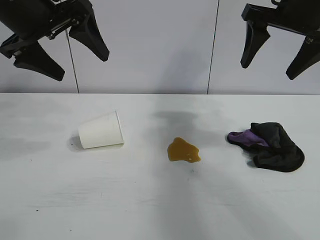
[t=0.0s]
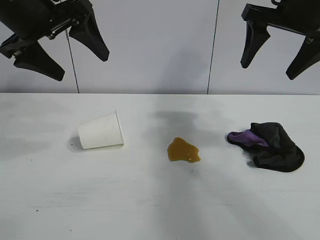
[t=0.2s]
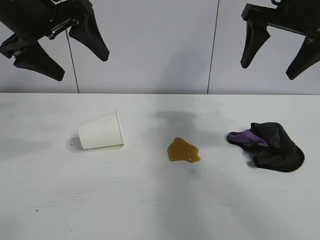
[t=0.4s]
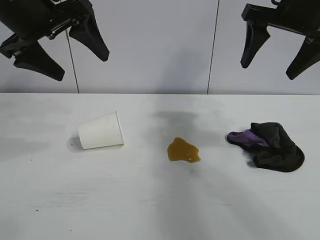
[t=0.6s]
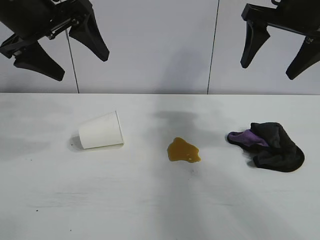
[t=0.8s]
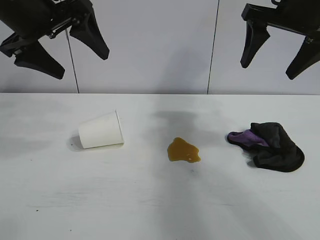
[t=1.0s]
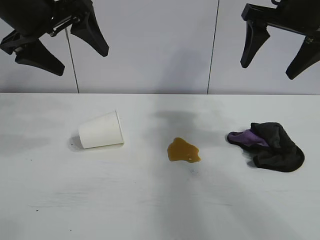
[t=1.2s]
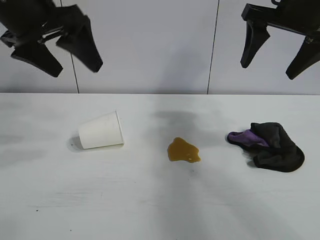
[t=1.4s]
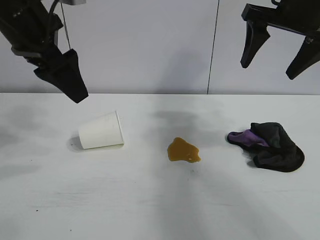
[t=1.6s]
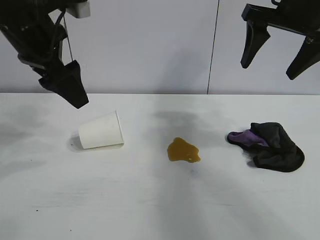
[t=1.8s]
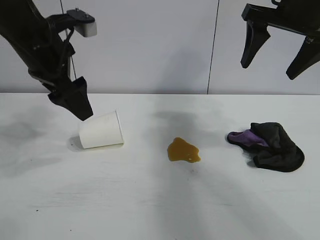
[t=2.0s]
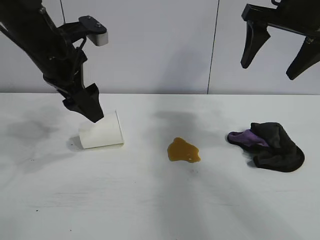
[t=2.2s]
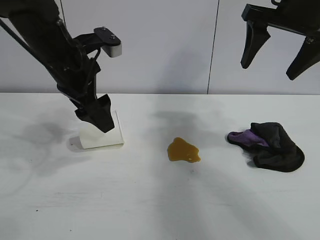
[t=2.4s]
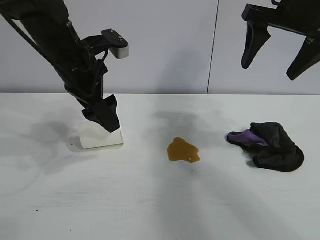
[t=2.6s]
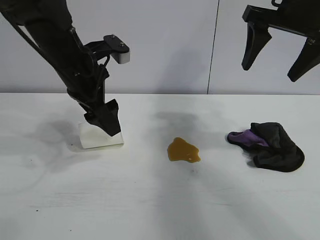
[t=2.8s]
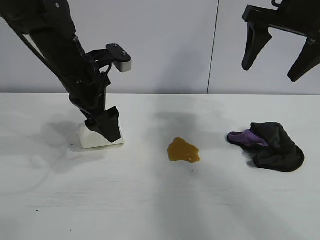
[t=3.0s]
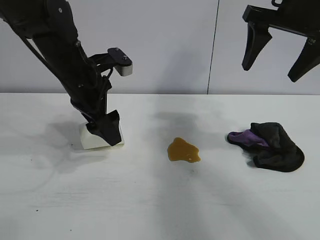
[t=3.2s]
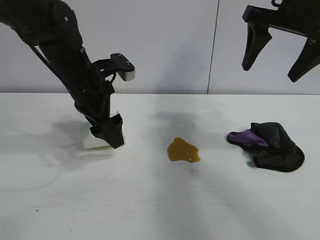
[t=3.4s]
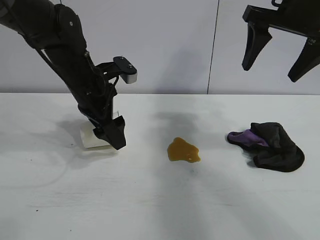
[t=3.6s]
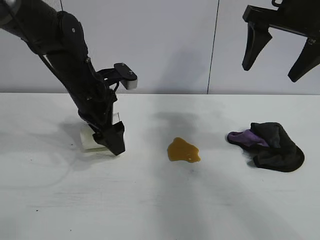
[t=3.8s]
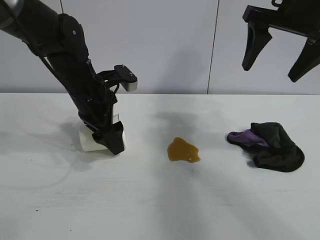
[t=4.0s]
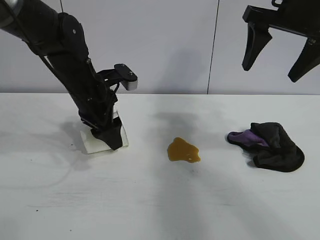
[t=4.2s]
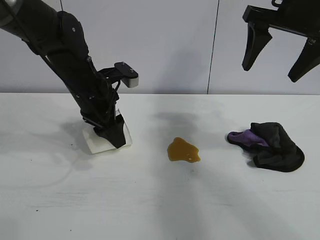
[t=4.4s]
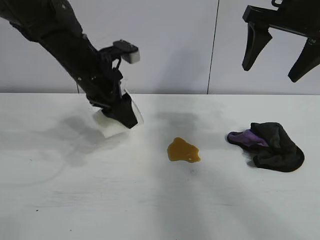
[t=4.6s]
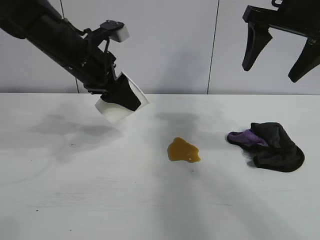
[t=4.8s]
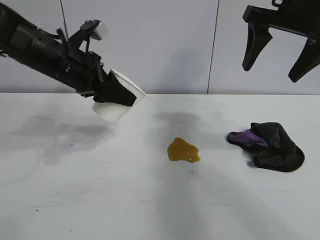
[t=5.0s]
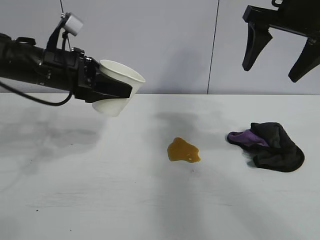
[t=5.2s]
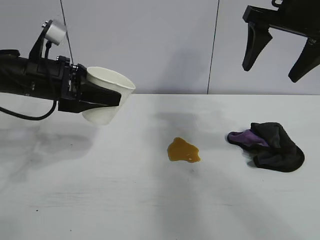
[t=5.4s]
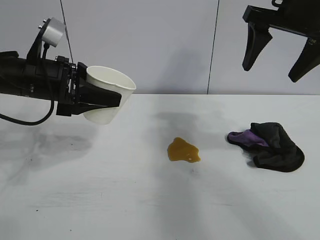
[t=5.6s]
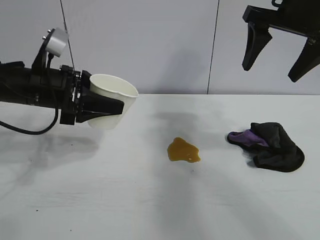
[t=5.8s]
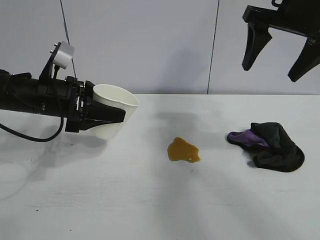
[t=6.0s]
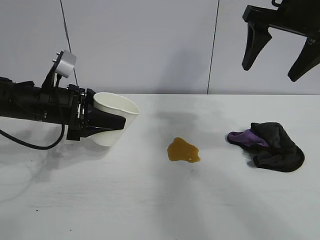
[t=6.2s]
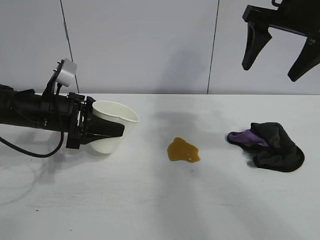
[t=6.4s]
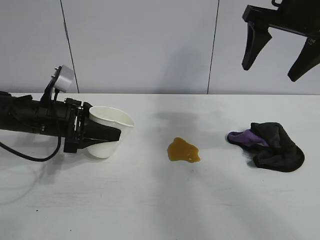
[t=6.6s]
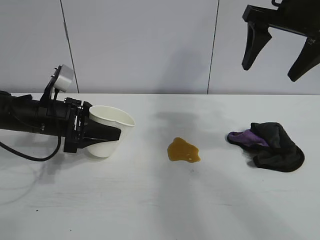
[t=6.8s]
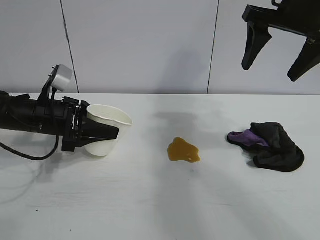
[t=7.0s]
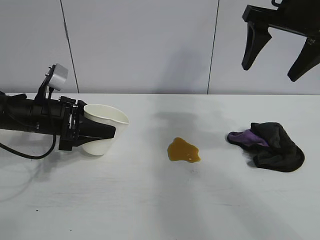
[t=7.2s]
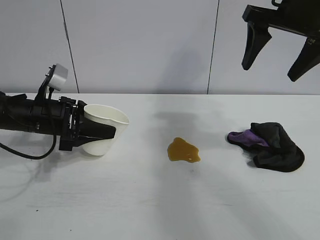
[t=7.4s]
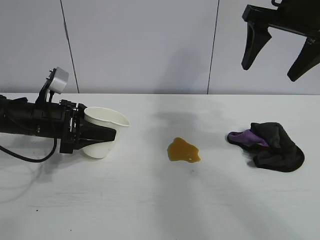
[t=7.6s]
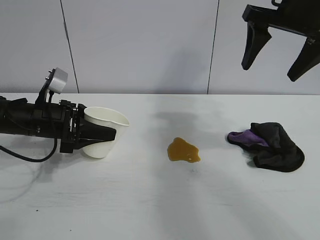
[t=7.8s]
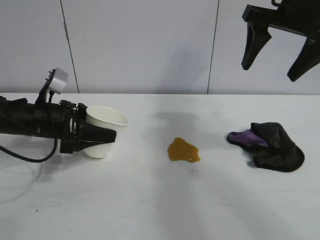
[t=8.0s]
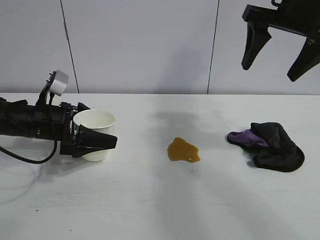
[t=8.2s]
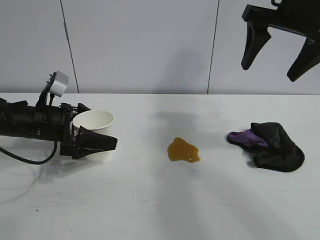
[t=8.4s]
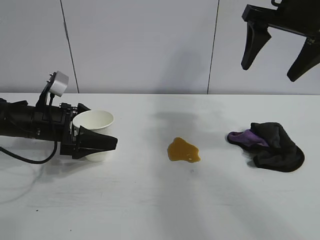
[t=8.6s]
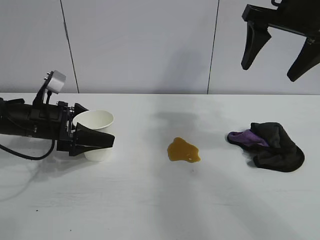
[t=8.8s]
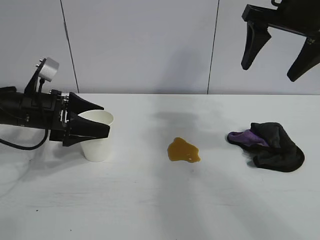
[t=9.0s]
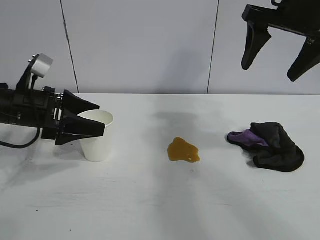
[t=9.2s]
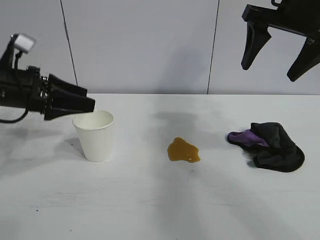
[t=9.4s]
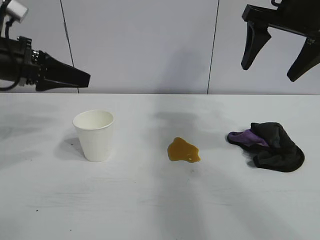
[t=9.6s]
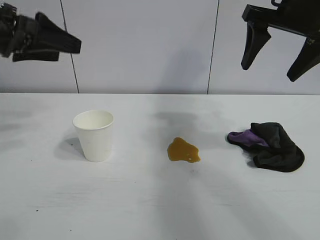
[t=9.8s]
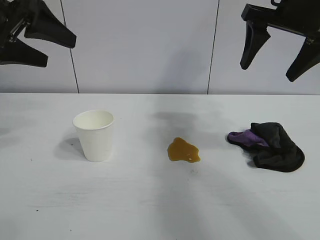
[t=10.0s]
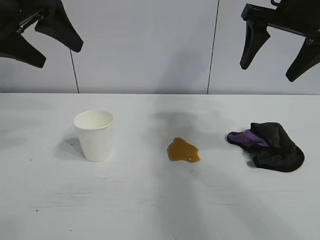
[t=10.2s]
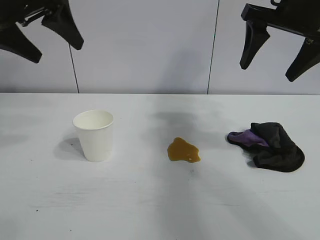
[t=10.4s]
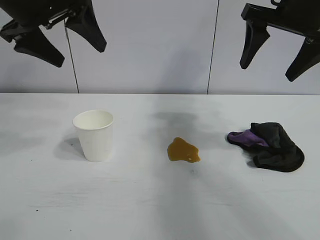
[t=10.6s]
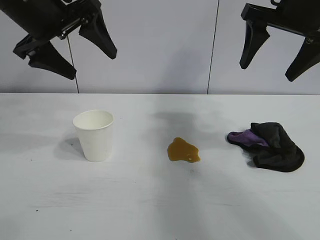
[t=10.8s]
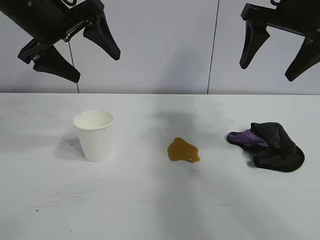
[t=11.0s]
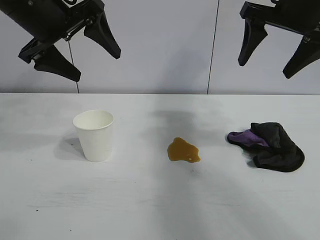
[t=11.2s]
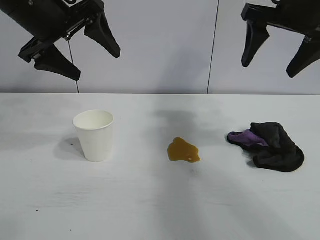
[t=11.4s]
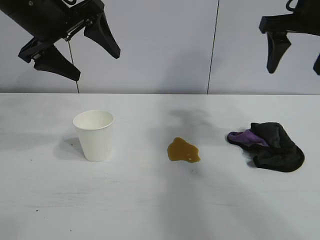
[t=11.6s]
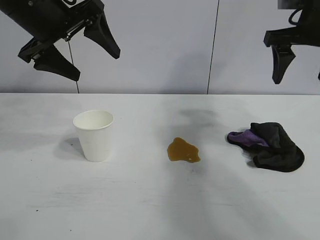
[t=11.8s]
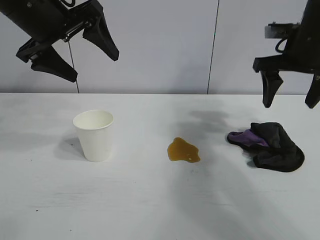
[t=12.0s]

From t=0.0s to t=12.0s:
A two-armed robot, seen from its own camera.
Task of the whole recording: the left gripper pick up the fallen cup and place it upright, the right gripper grasp the black rag and wipe the stain on the table, the right gripper put the black rag back in its original position.
Step, from t=1.2s to t=4.2s: Grasp the paper cup with left gripper.
Step, from t=4.4s to t=8.2s: Stand the paper cup upright with left gripper.

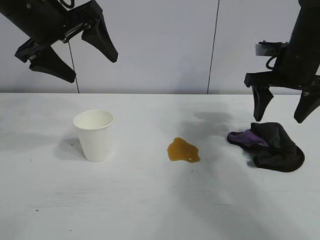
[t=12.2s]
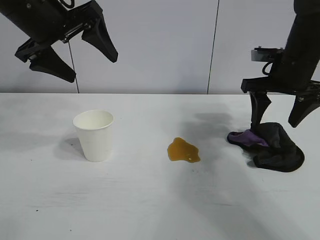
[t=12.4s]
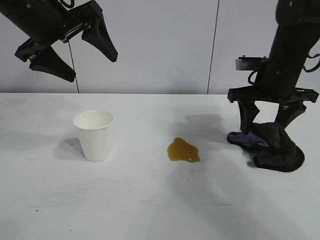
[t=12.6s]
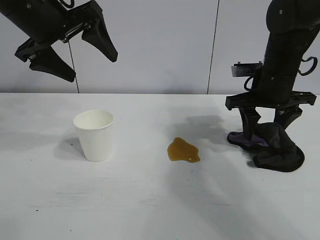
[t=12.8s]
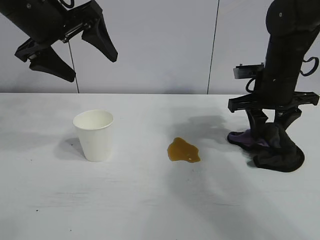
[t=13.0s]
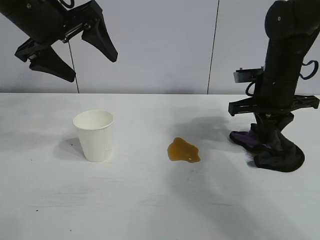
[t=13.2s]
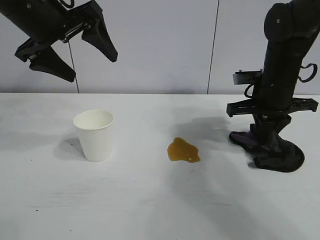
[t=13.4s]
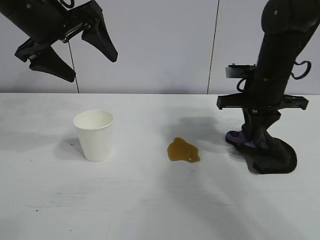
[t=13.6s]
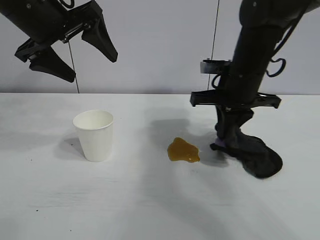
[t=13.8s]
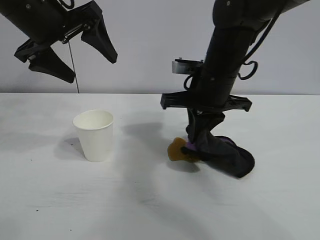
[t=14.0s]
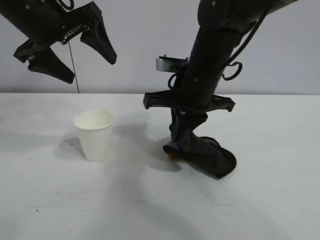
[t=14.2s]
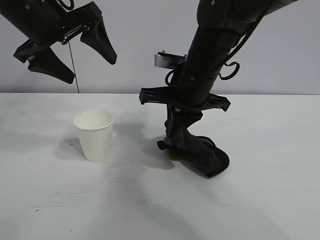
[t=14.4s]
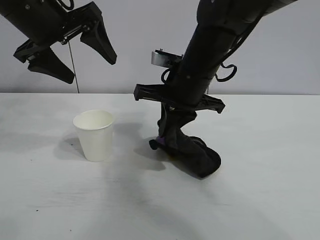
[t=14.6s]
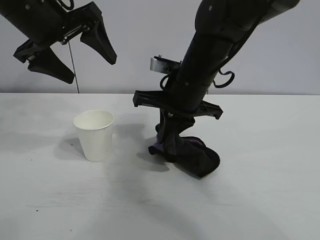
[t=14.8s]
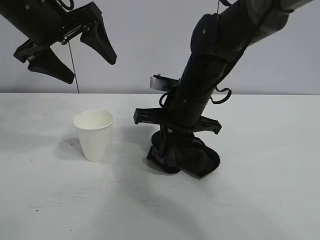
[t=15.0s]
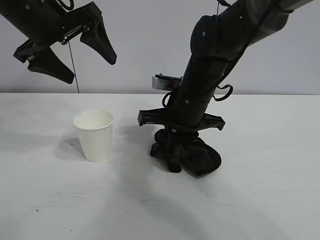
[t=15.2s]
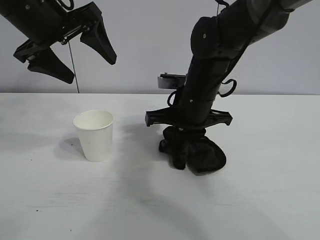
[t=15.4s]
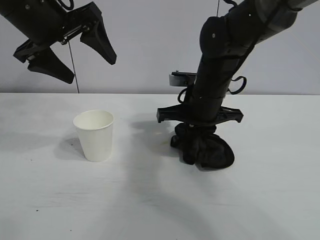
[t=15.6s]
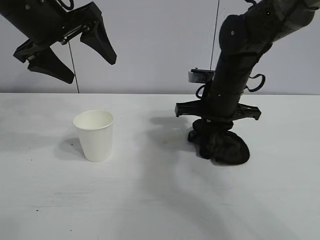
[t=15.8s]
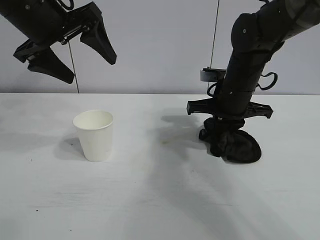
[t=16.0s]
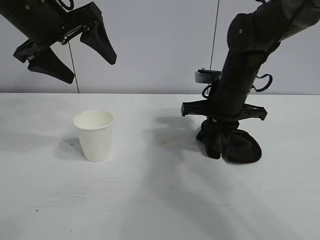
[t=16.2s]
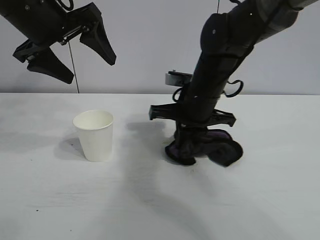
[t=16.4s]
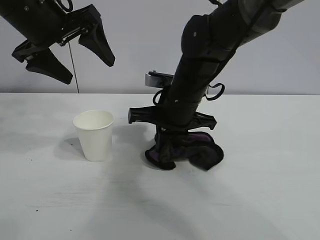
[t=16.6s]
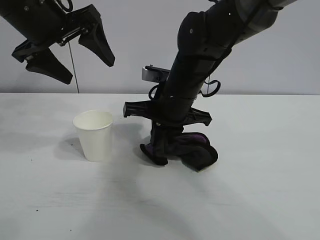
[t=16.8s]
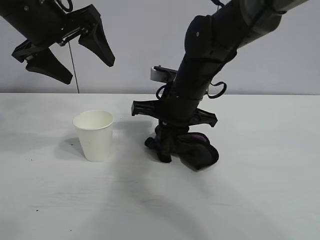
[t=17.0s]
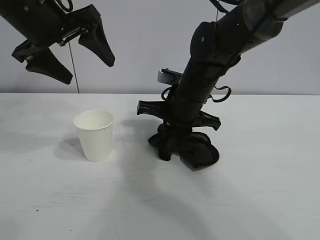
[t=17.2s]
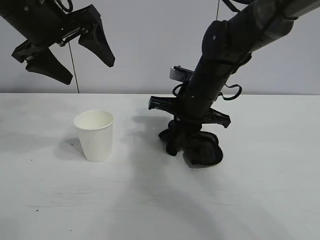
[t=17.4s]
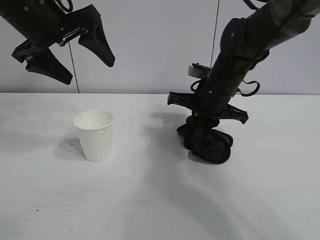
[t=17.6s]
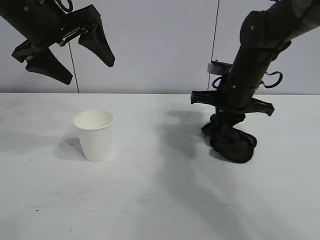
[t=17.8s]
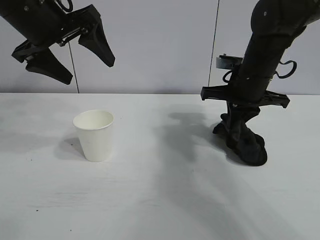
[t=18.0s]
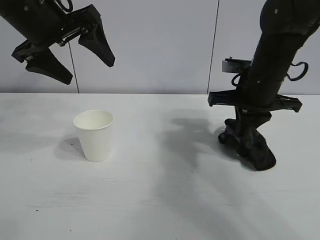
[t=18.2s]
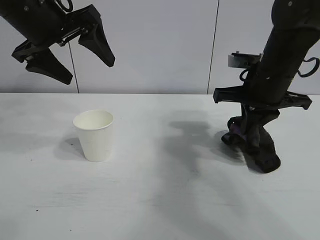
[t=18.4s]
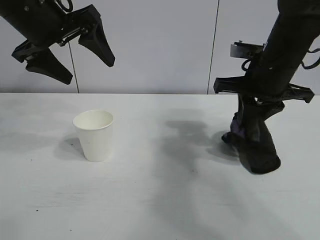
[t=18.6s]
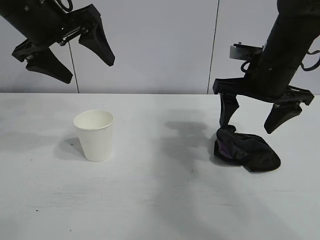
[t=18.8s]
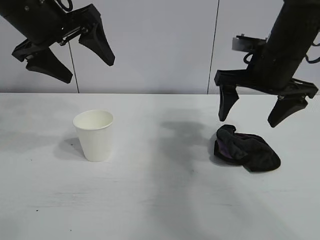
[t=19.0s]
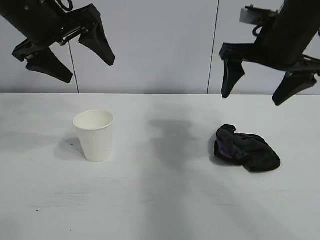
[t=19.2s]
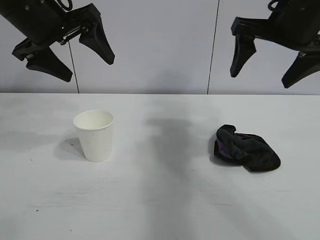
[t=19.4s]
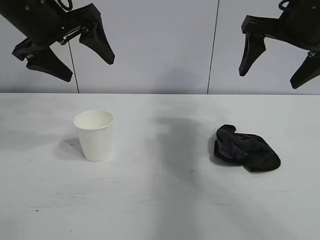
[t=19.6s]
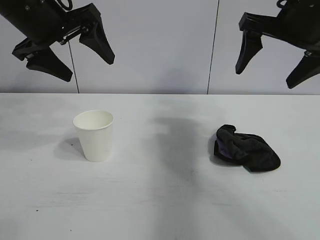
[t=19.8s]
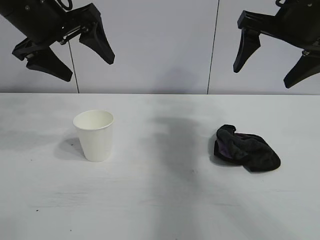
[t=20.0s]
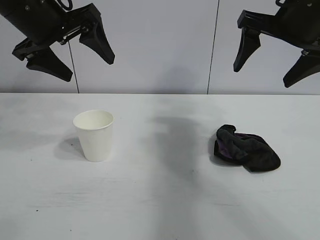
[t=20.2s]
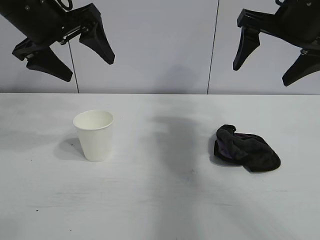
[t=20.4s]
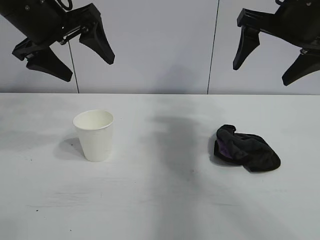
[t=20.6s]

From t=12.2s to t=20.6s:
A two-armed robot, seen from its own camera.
Task of the whole recording: the left gripper pick up the fallen cup and place it upright, the right gripper grasp the black rag and wipe the stain on the table, the right gripper put the black rag back in its original position.
Step, from t=13.4s to t=17.6s: Wipe the stains off the table with the rag with right gripper.
Step, from t=17.8s to t=18.6s: Place the rag on the table with right gripper.
